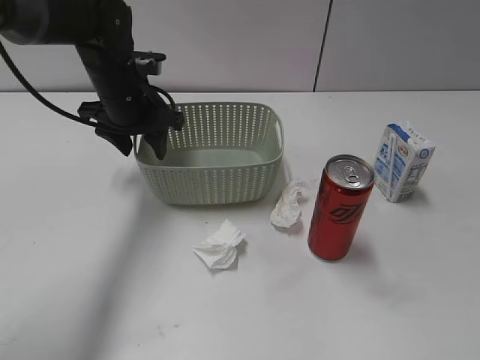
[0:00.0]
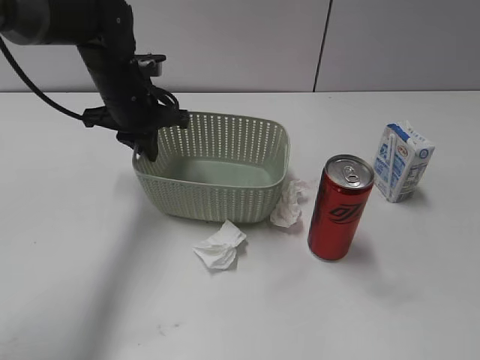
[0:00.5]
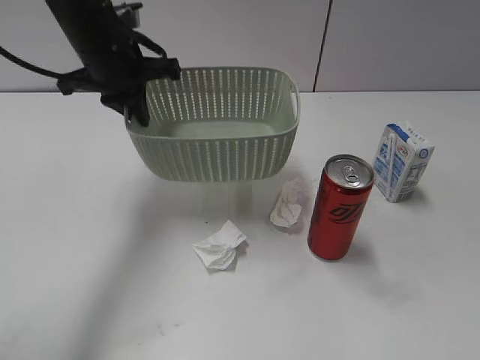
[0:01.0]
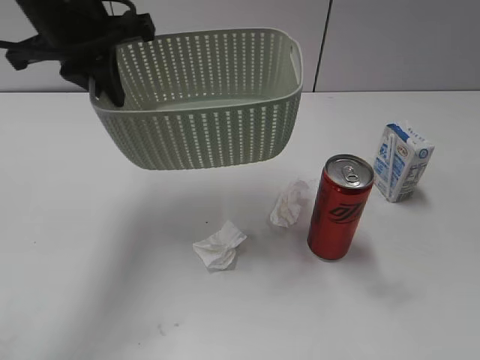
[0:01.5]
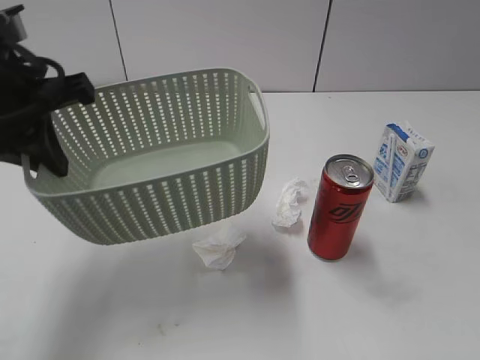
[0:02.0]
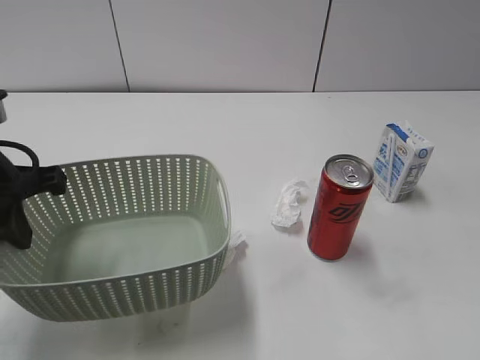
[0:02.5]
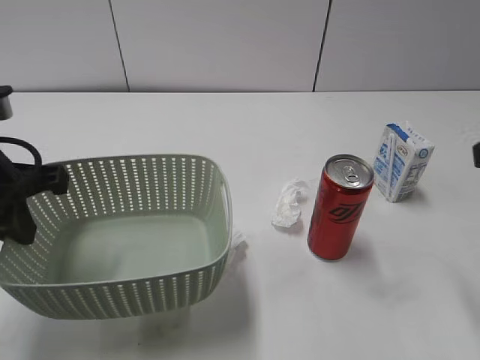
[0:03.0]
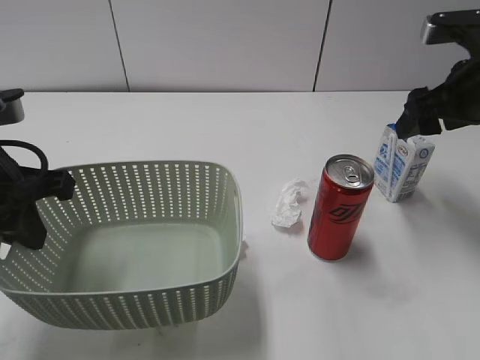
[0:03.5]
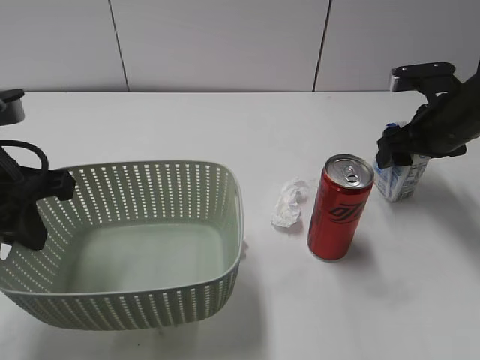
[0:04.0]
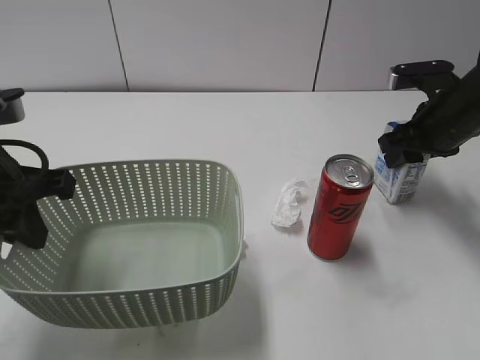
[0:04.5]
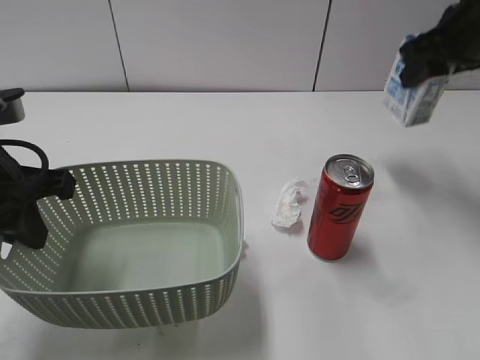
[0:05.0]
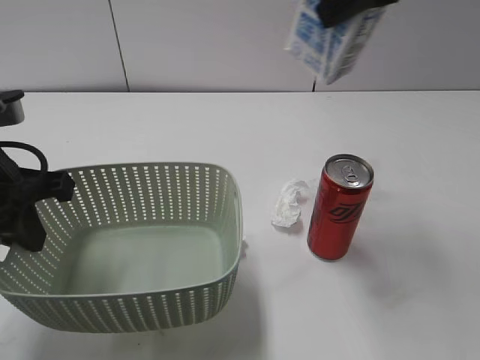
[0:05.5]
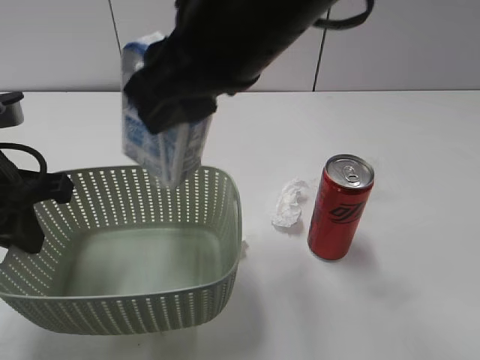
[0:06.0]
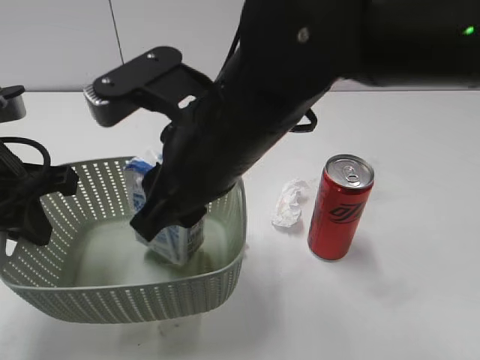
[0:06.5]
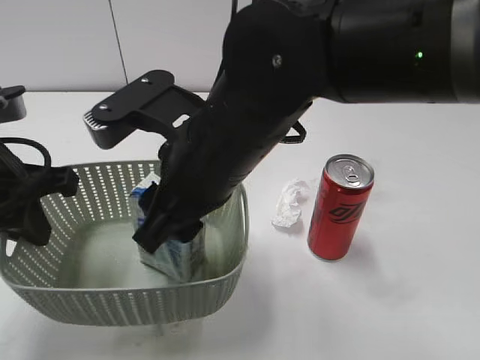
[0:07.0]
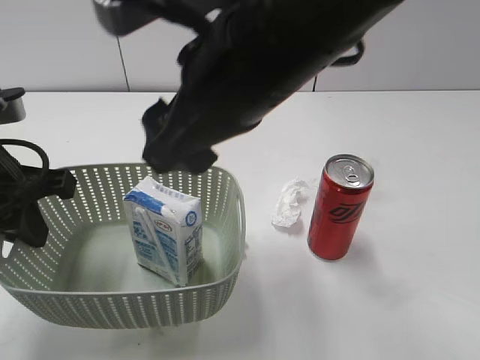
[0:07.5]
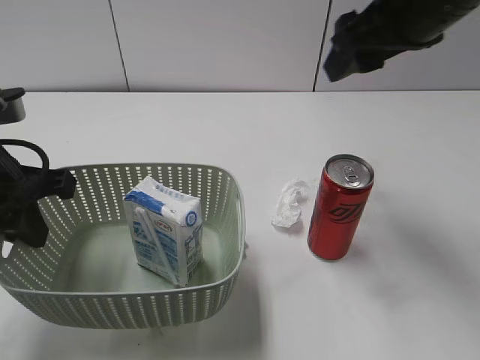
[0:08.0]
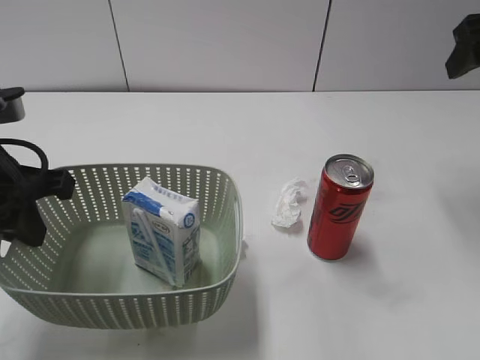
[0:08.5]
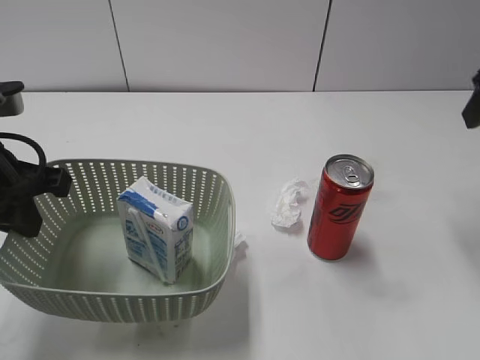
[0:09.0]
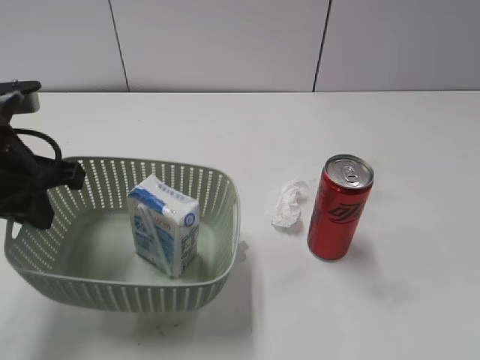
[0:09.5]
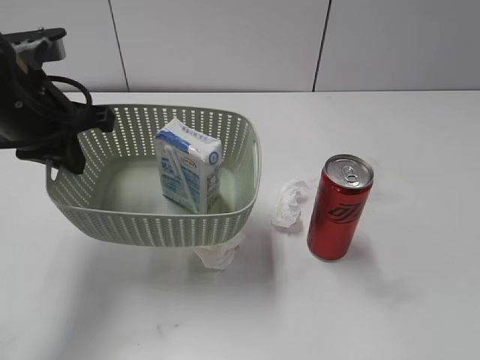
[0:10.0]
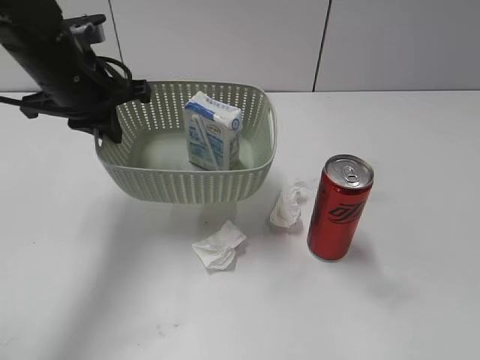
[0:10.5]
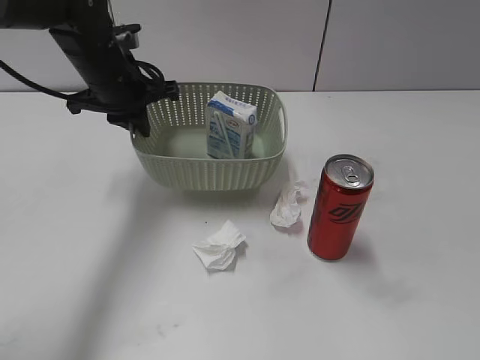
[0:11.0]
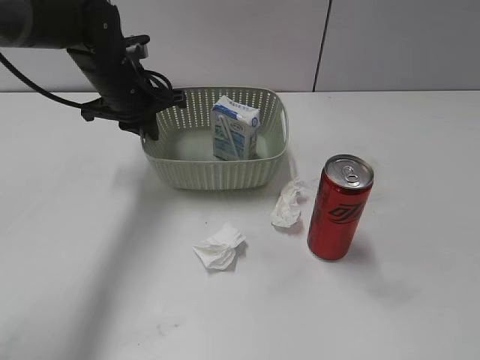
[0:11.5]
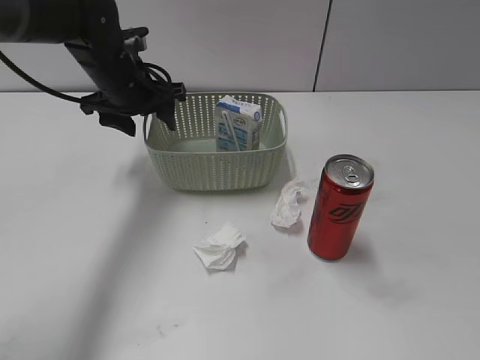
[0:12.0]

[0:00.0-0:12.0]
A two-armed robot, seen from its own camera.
Step, 0:00.5 to 0:02.5: Lift the basket with left gripper.
Step, 0:03.0 to 0:04.0: Grasp the milk with right gripper.
Step, 0:04.5 to 0:07.0: Place the milk in the basket with right gripper.
0:00.0 to 0:02.0: The left gripper is displaced backward and upward by some 20 cm, and closes.
0:02.0 to 0:04.0: The left gripper shifts about 10 cm downward and backward. The right gripper is displaced forward by roughly 35 cm.
0:04.0 to 0:06.0: The right gripper heads to the left, upward and backward, covering some 35 cm, and closes up.
0:06.0 to 0:08.0: The right gripper travels to the right and forward by about 10 cm, and opens its fingers.
0:08.0 to 0:10.0: The right gripper travels backward and to the right by approximately 30 cm. Meanwhile the left gripper moves forward, approximately 5 cm.
0:10.0 to 0:12.0: The left gripper travels forward and downward by roughly 15 cm, and opens its fingers. Meanwhile the right gripper shifts by roughly 5 cm.

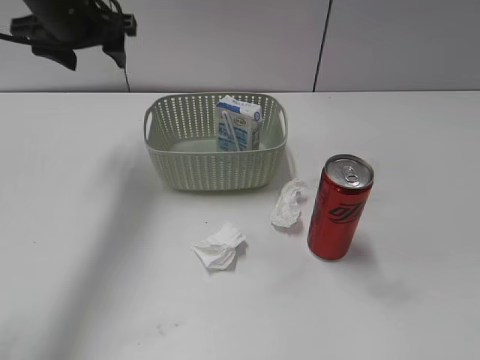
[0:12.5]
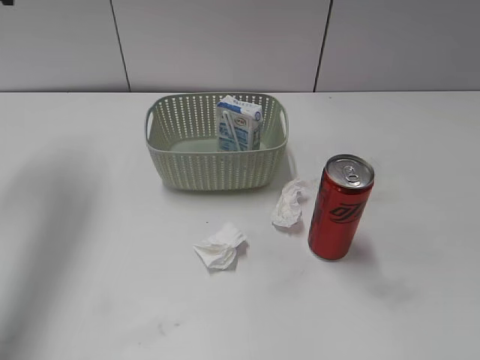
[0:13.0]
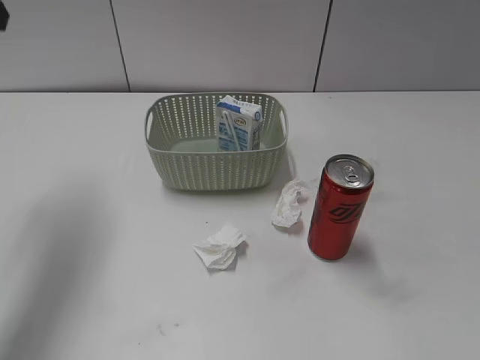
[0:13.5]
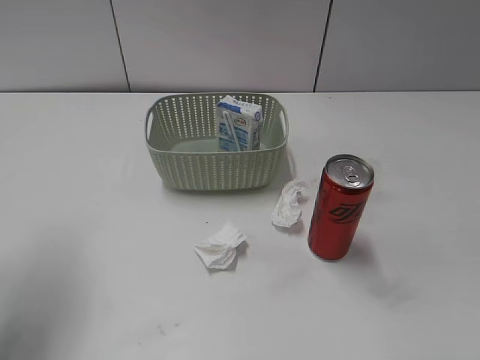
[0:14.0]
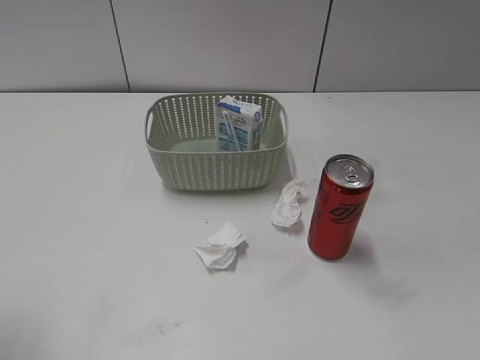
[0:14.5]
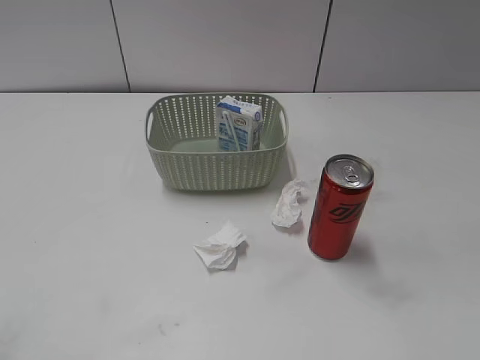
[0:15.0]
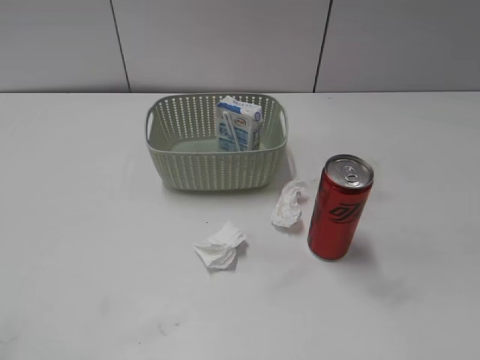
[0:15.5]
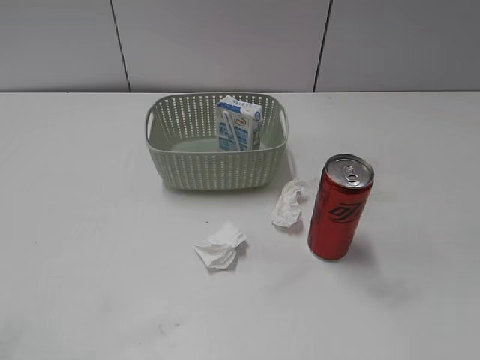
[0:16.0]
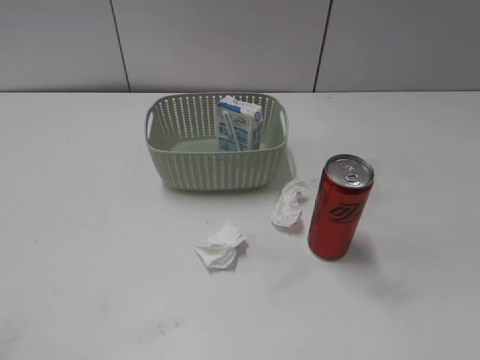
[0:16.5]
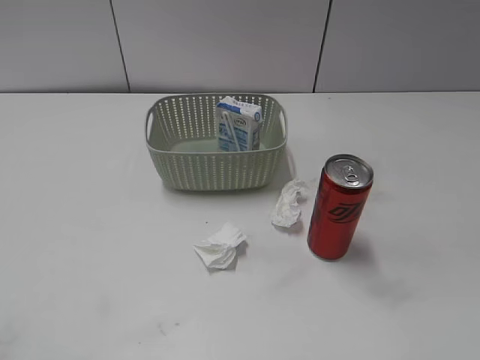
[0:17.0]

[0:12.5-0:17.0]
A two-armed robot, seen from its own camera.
0:12.5 to 0:14.5: The left gripper travels backward and to the left by about 30 cm.

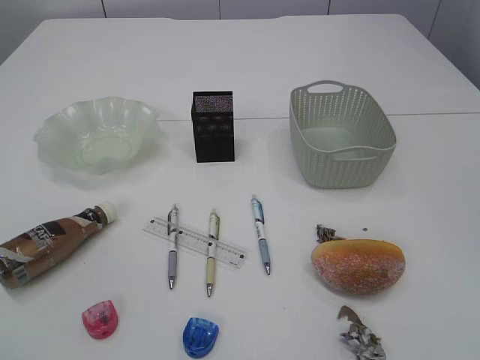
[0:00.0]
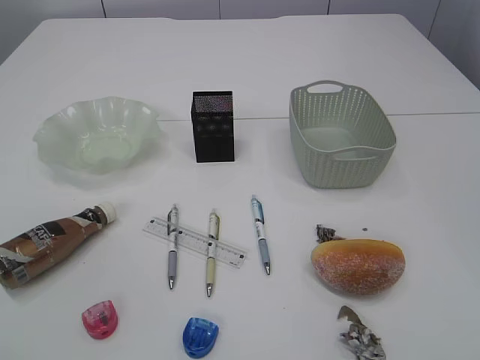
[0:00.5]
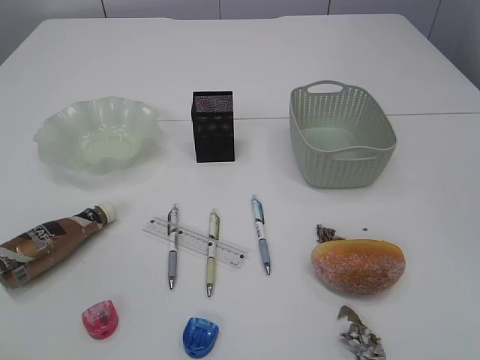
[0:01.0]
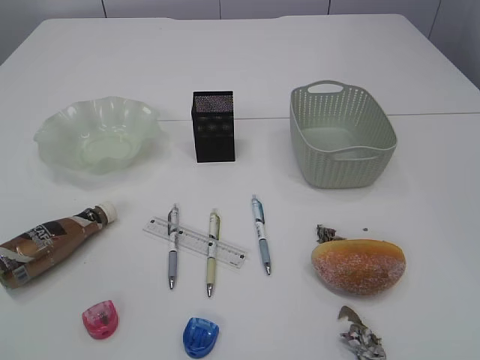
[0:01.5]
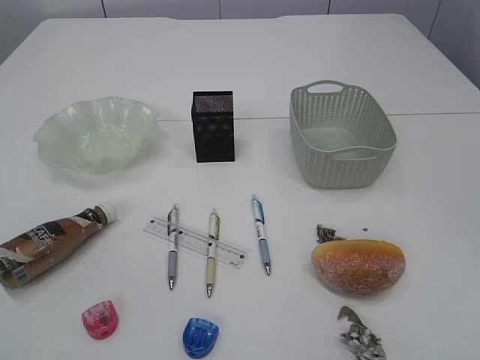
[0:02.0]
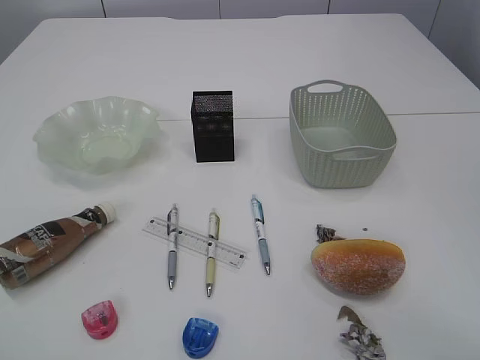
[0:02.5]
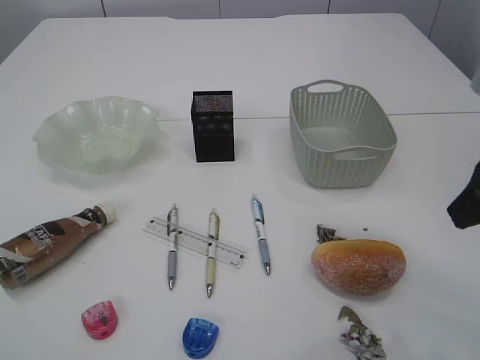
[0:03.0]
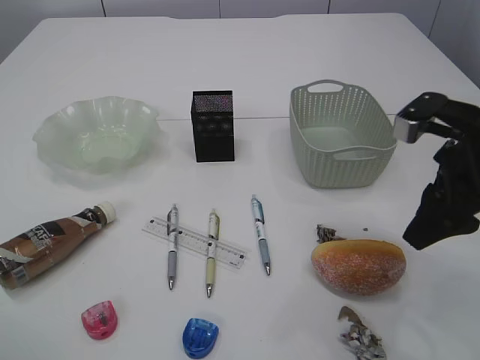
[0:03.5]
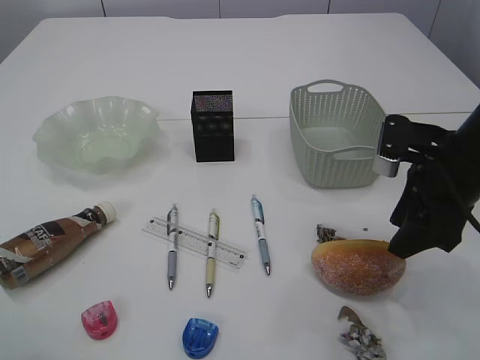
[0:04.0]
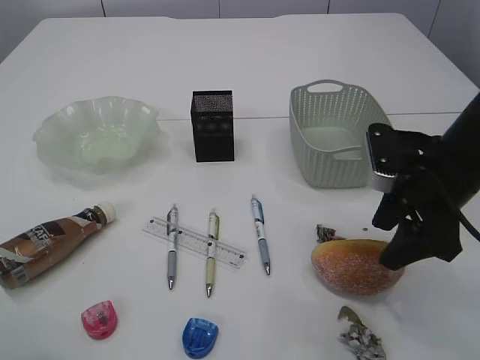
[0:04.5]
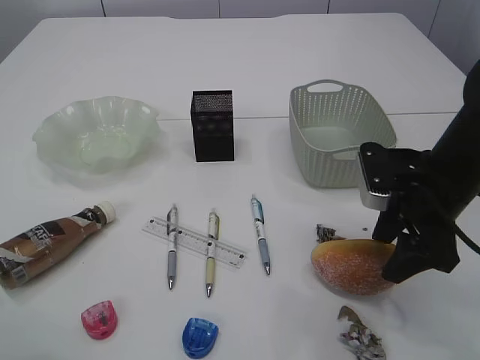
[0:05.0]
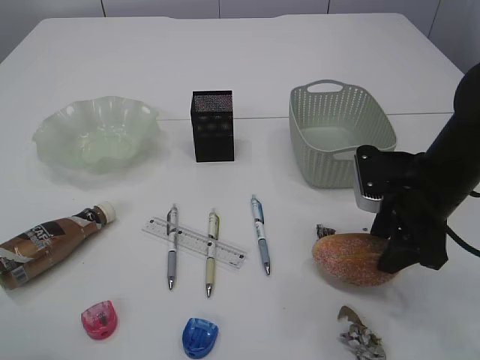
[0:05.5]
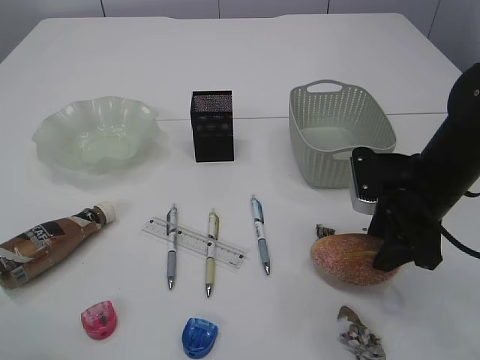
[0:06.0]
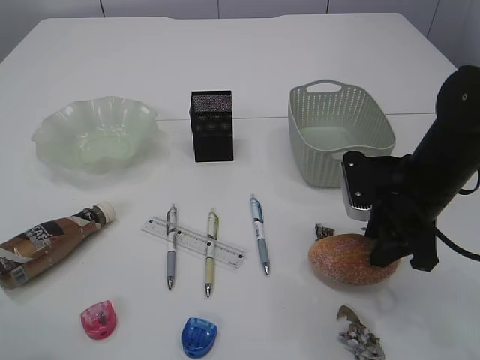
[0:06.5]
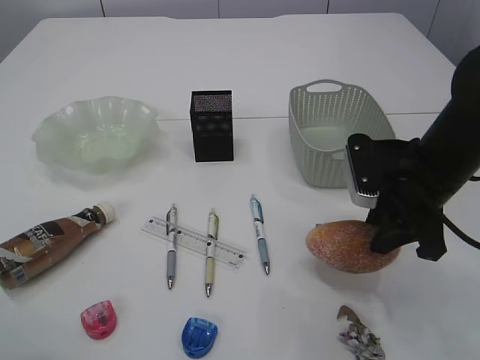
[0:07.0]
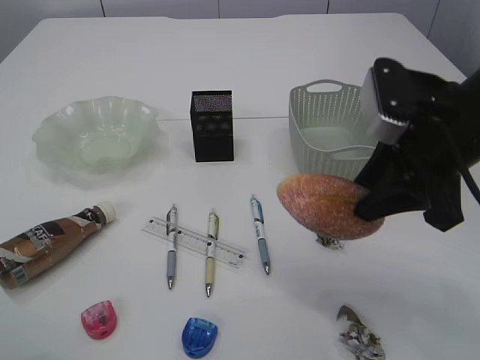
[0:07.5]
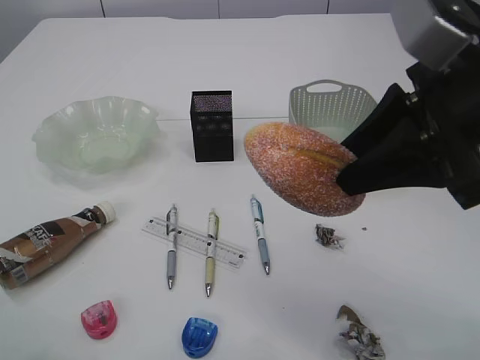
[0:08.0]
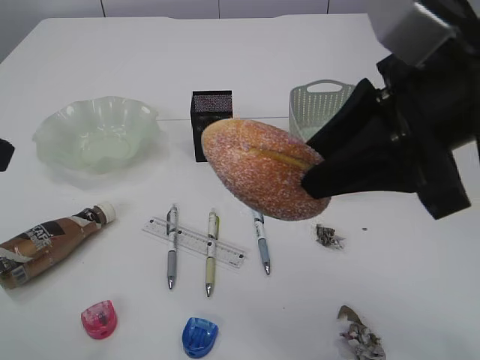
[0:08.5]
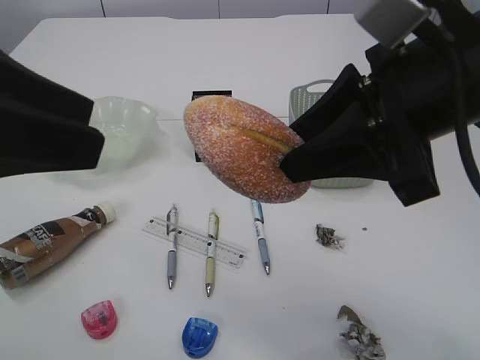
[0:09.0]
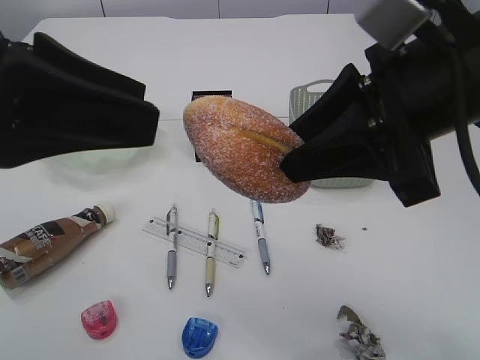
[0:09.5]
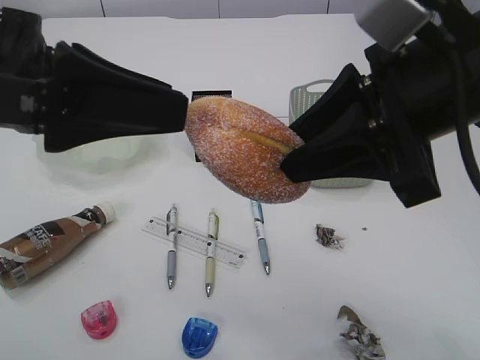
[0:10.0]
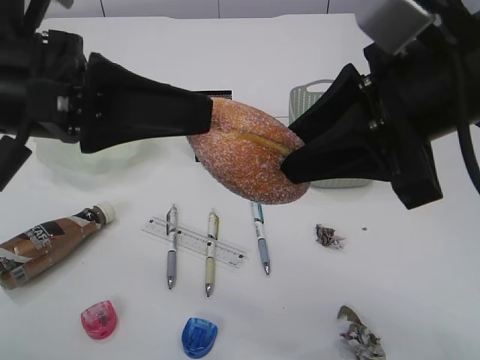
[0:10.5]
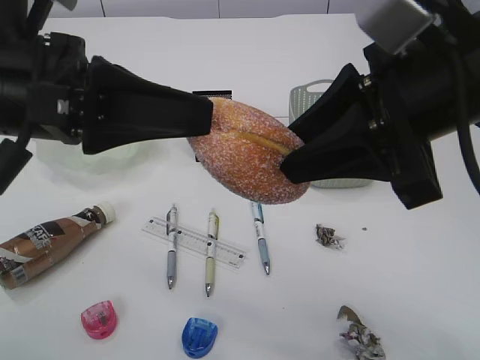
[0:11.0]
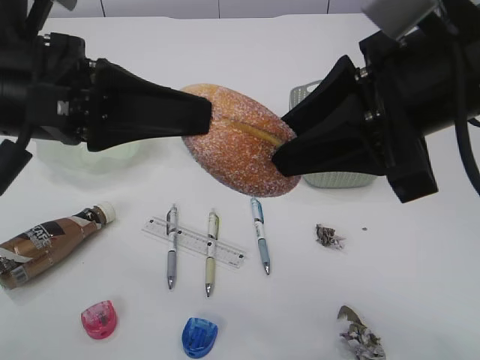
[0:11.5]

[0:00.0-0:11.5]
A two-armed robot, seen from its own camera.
0:02.0 to 0:04.0: The right gripper goes some 30 cm forward.
0:04.0 to 0:06.0: The grippers stay close to where they were, moving slightly.
0:06.0 to 0:07.5: The right gripper heads upward, covering some 10 cm.
0:07.5 to 0:09.5: The right gripper moves upward and to the left, roughly 10 cm. The left gripper moves to the right, some 10 cm.
0:09.5 to 0:11.5: The left gripper moves approximately 5 cm, and closes its fingers.
